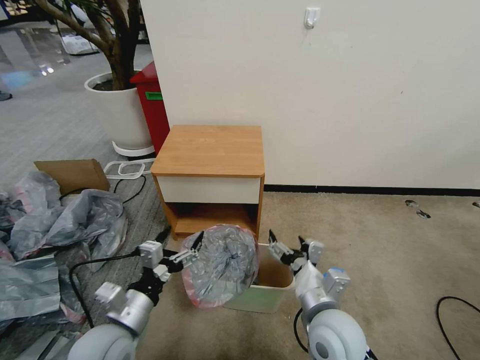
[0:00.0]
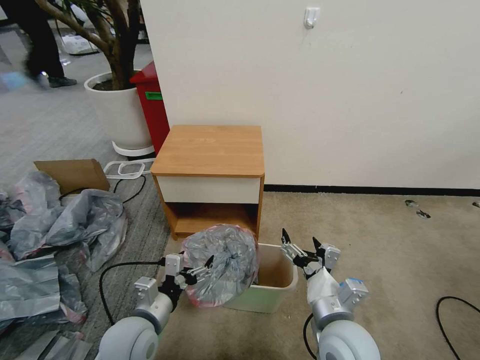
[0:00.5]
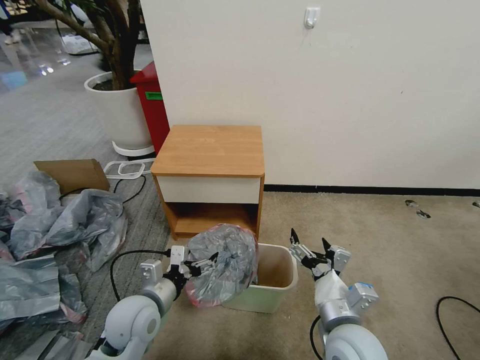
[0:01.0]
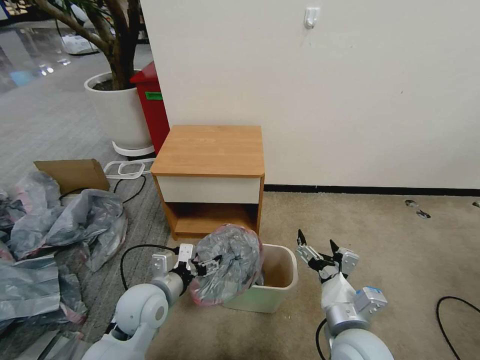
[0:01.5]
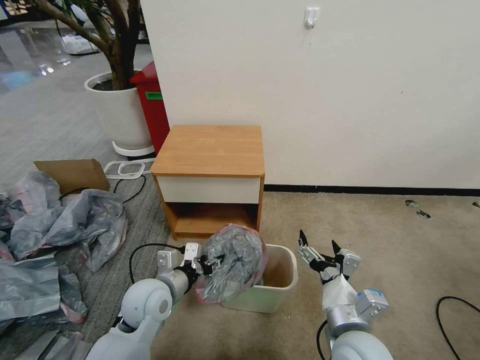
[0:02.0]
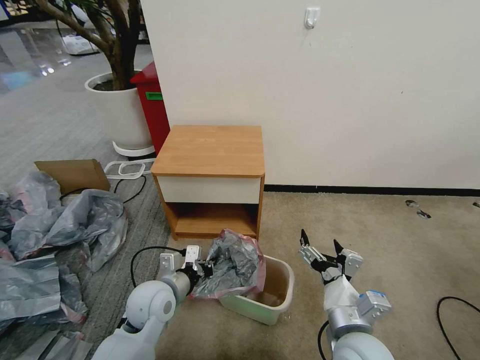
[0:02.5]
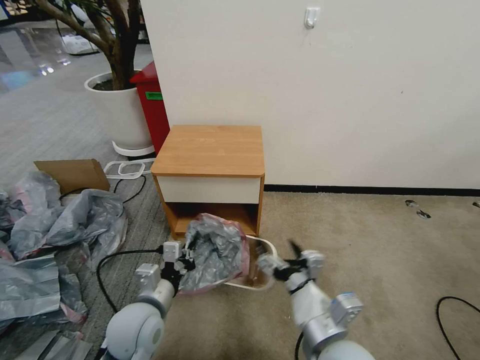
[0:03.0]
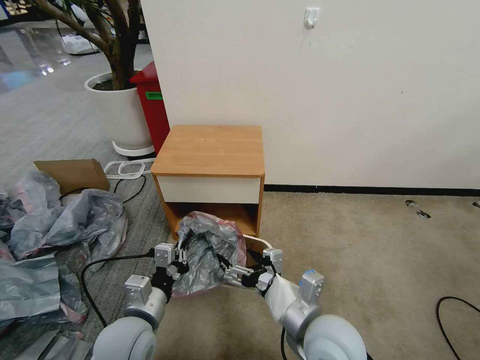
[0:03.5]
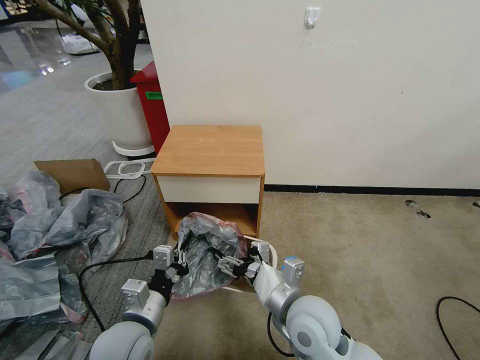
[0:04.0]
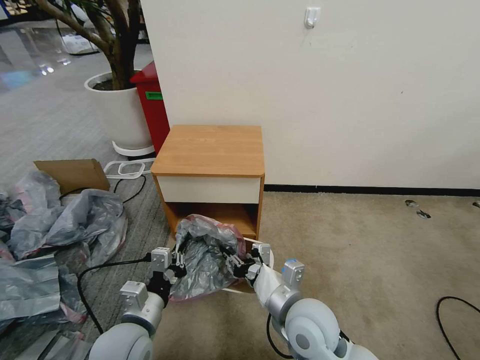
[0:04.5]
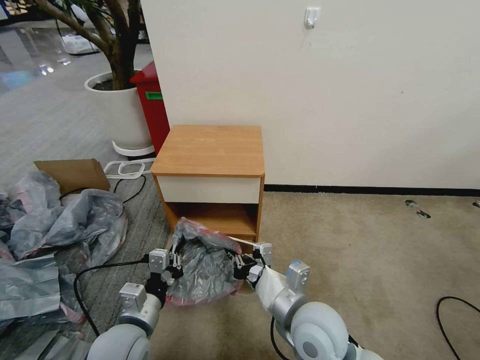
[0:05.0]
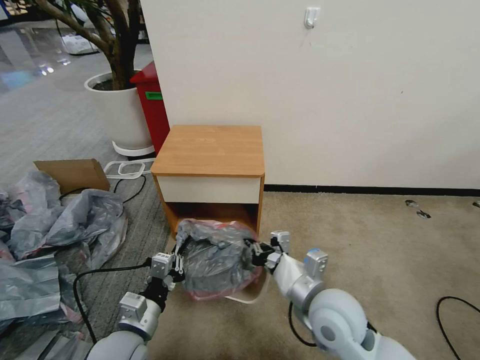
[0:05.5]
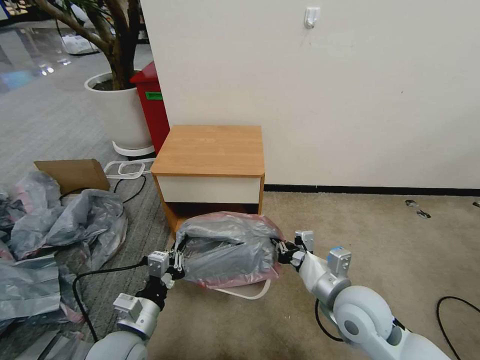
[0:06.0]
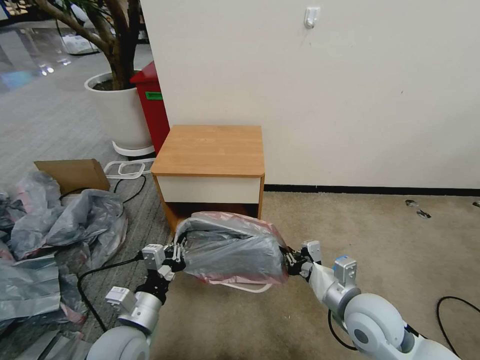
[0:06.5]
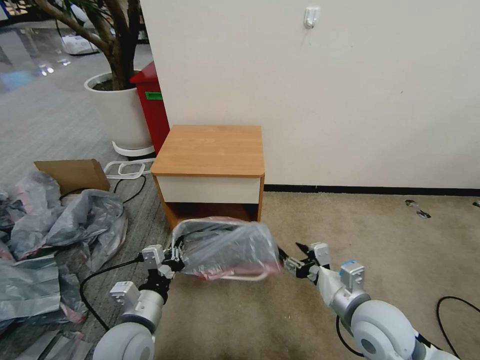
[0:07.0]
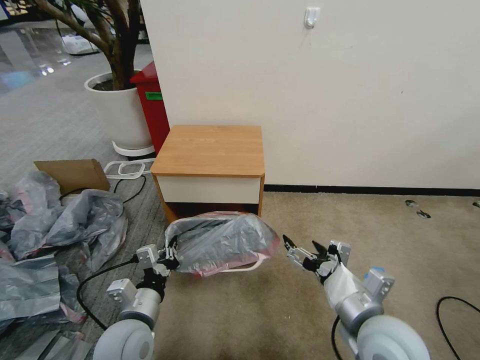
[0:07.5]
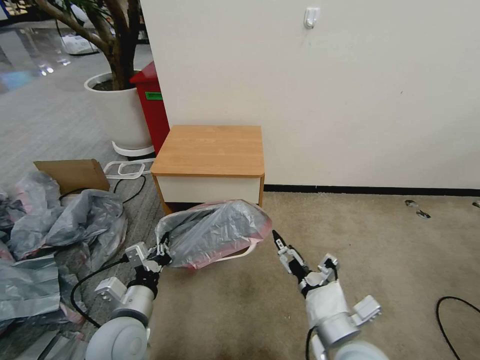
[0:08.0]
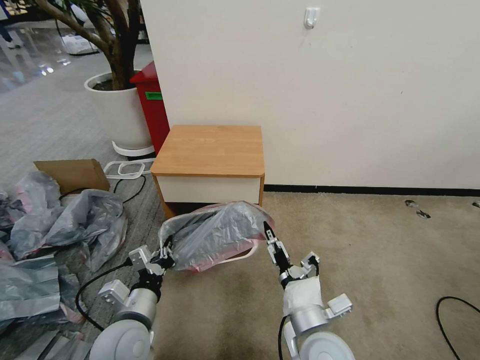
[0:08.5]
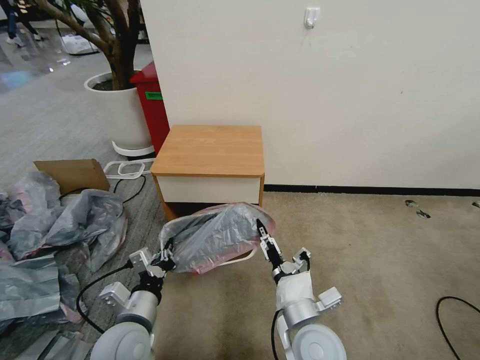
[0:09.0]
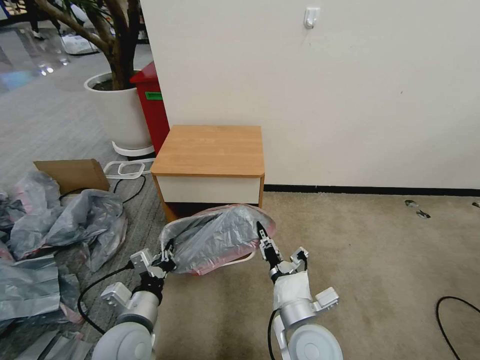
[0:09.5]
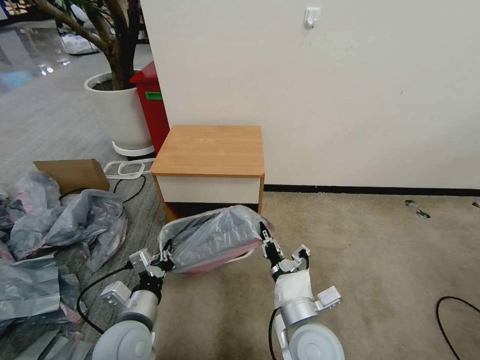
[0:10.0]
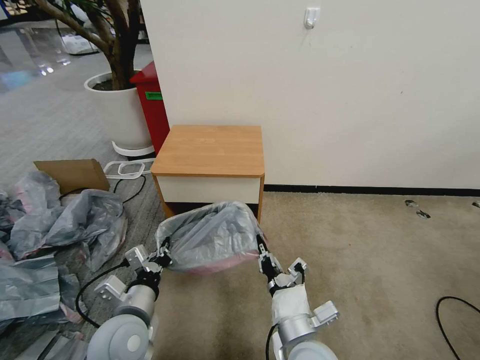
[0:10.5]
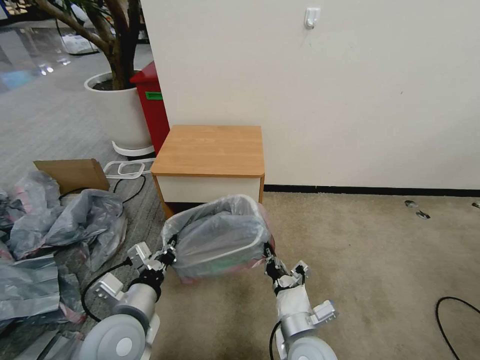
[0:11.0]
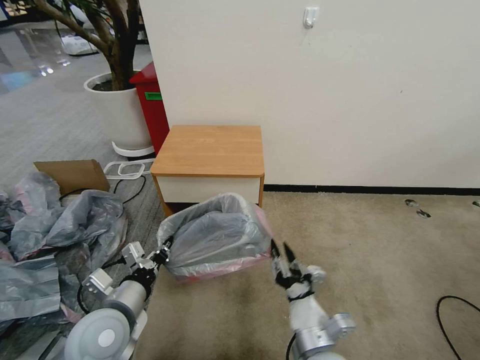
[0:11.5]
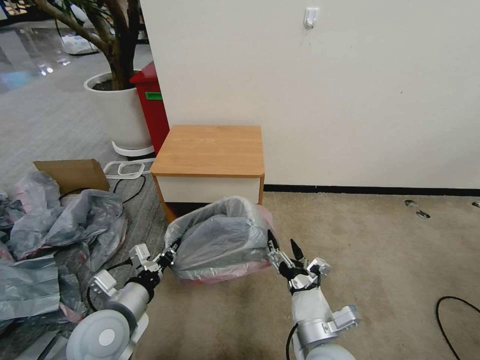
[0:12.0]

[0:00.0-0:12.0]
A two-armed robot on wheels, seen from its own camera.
Task of the whole recording: Pick up the garbage bag from the table and place it over the trash can.
0:00.0 to 0:02.0: The left gripper goes approximately 10 cm forward, and closes its fingers.
0:02.0 to 0:04.0: The right gripper heads to the left and forward, covering roughly 10 cm. The left gripper is displaced backward by roughly 10 cm, and closes its fingers.
0:04.0 to 0:06.0: The right gripper moves to the right, about 10 cm, and closes its fingers.
0:06.0 to 0:08.0: The right gripper is displaced backward by roughly 10 cm, and opens.
0:08.0 to 0:10.0: The right gripper goes some 5 cm to the left, and closes its fingers.
0:10.0 to 0:12.0: The right gripper opens.

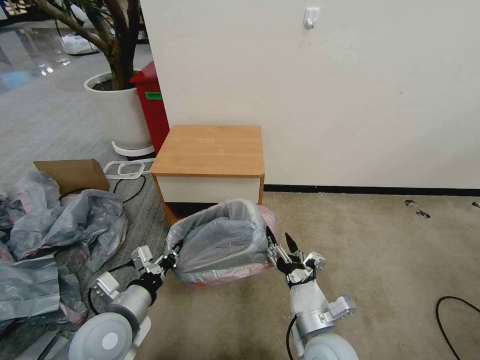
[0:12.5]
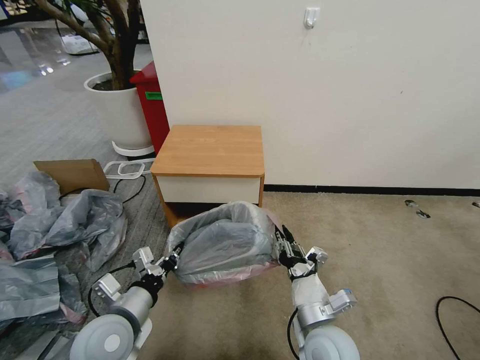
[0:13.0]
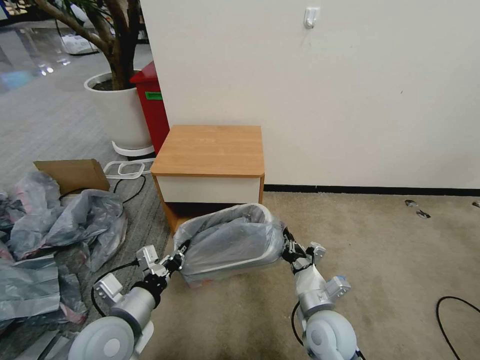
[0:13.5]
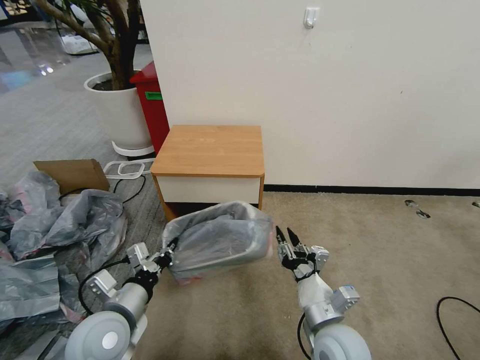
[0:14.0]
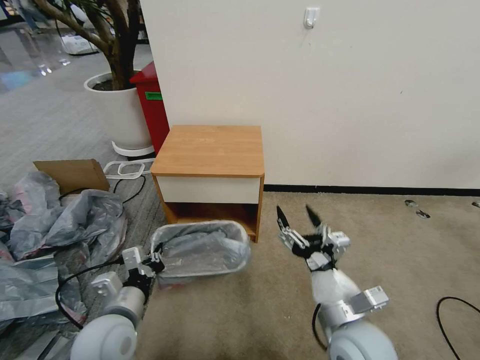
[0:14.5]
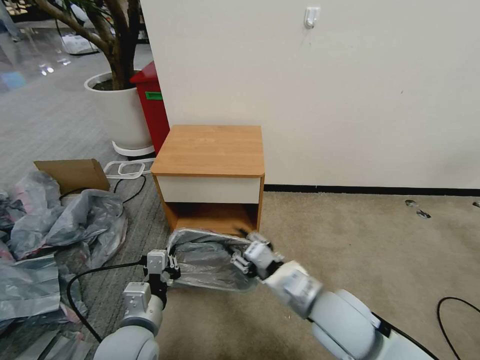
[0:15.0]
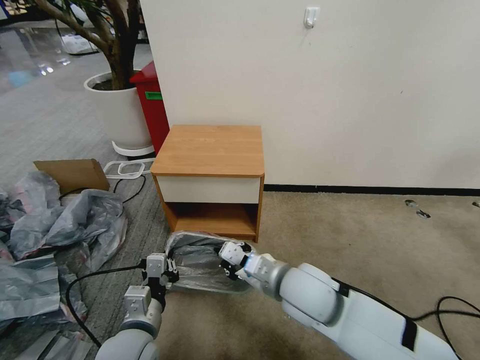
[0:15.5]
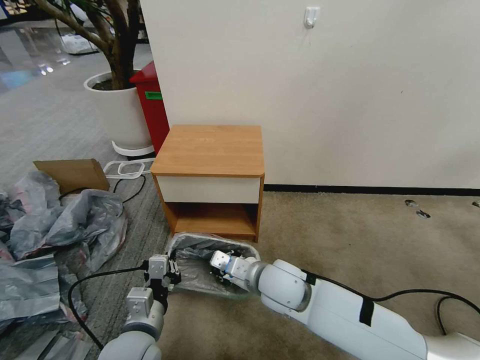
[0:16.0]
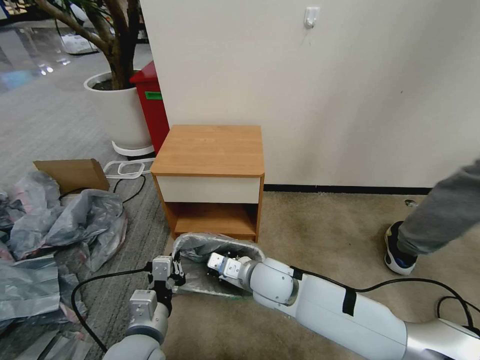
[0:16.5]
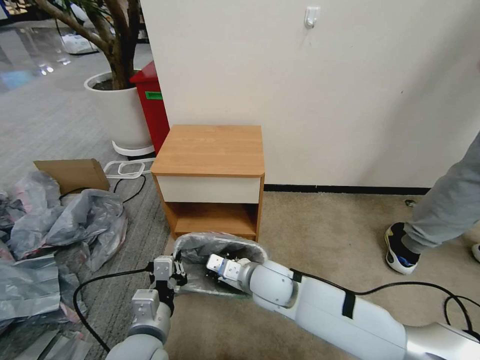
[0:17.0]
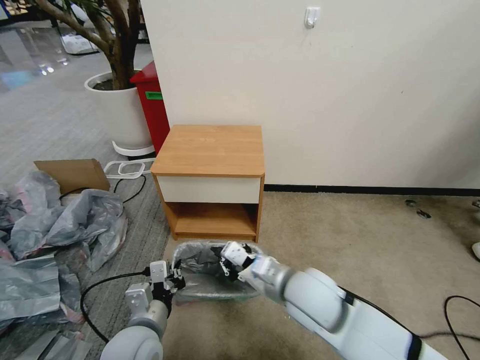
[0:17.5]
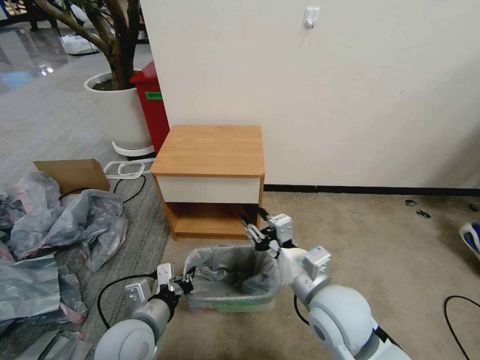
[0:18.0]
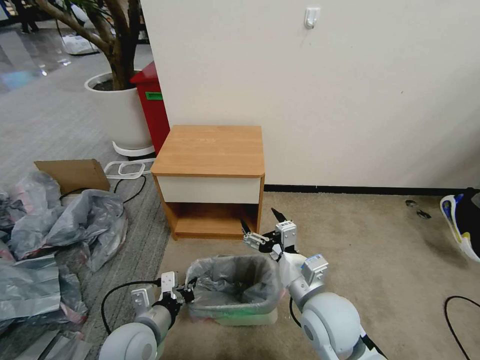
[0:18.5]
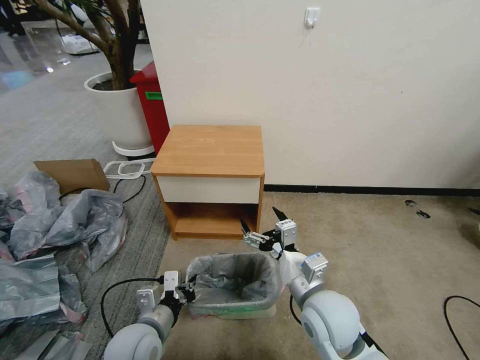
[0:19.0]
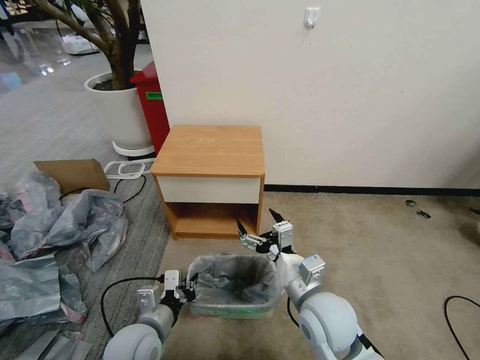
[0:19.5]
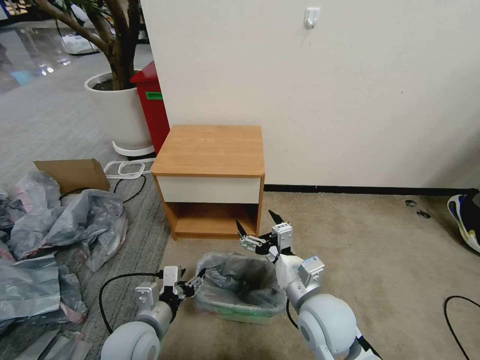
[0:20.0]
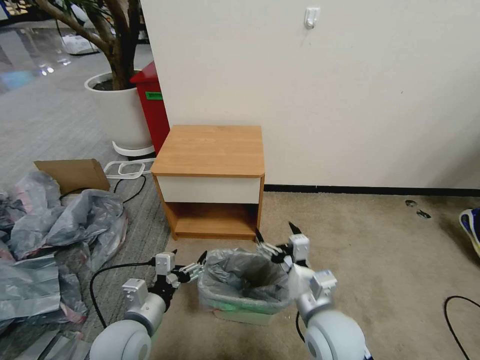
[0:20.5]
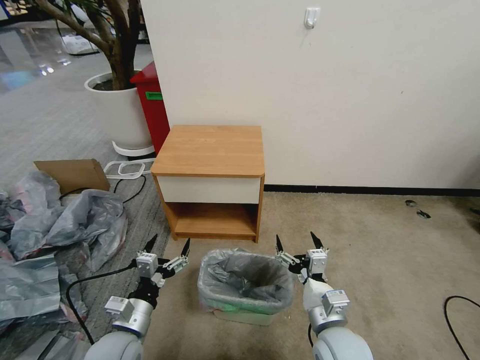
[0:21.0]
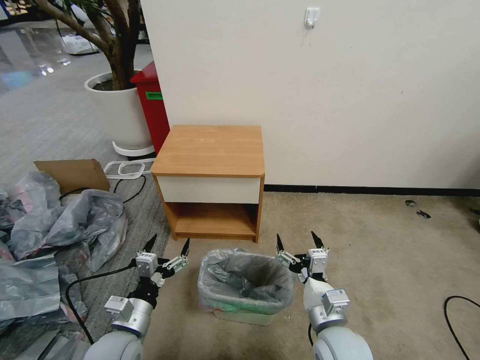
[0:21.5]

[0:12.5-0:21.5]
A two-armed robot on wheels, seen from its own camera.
Task of the whole recording: Pick up the garbage bag from the table and place it over the trash can.
0:12.5 to 0:14.5: The right gripper travels upward by approximately 5 cm, and closes, then reopens.
0:14.5 to 0:17.0: The right gripper heads to the left and forward, covering roughly 20 cm, and closes. Meanwhile the left gripper is displaced to the right by about 5 cm.
0:17.0 to 0:19.5: The left gripper changes place by approximately 5 cm; the right gripper heads to the right and backward, covering some 10 cm, and opens up.
0:19.5 to 0:21.5: The right gripper heads downward, covering about 5 cm, while the left gripper opens.

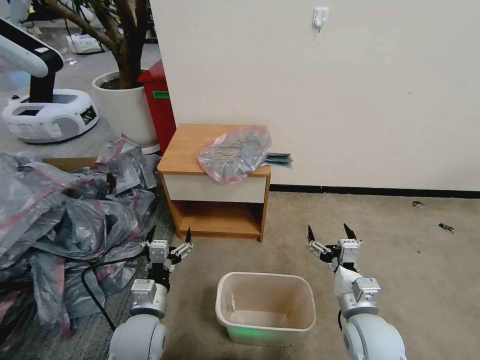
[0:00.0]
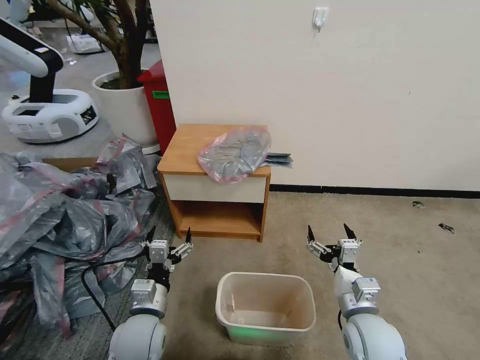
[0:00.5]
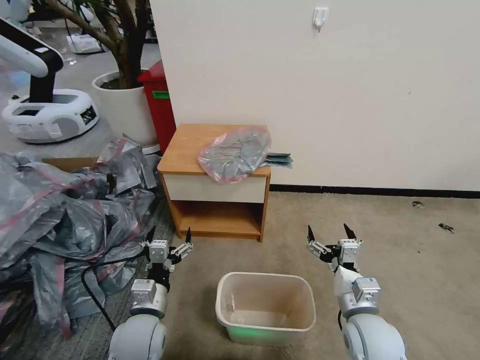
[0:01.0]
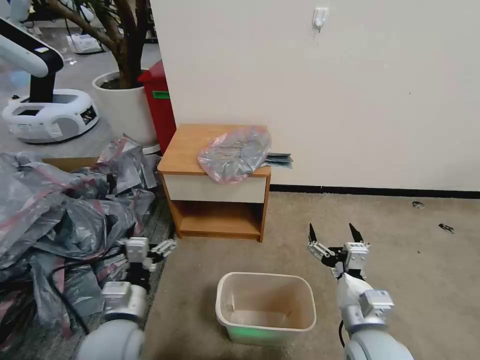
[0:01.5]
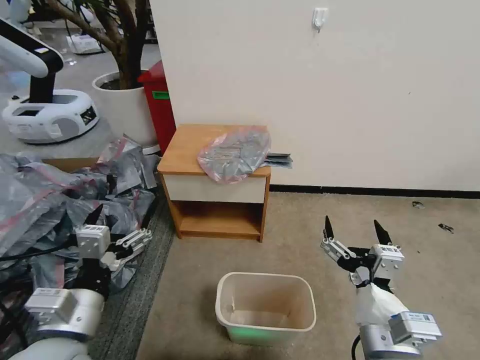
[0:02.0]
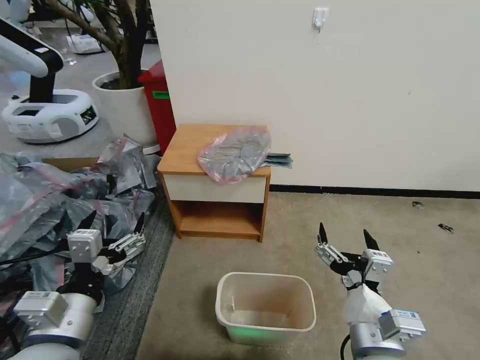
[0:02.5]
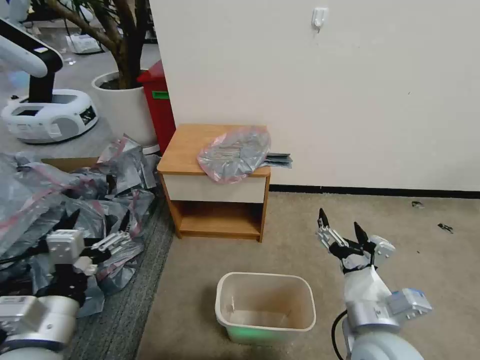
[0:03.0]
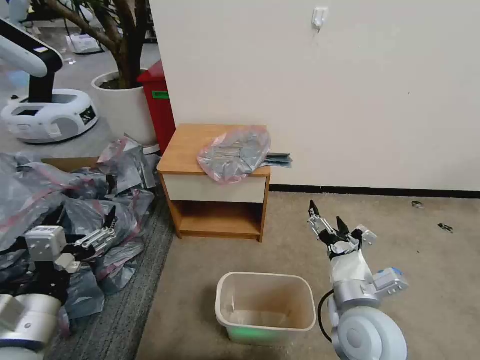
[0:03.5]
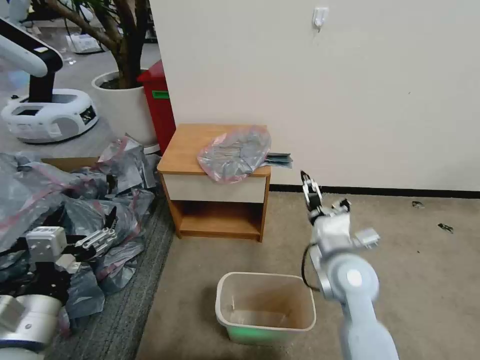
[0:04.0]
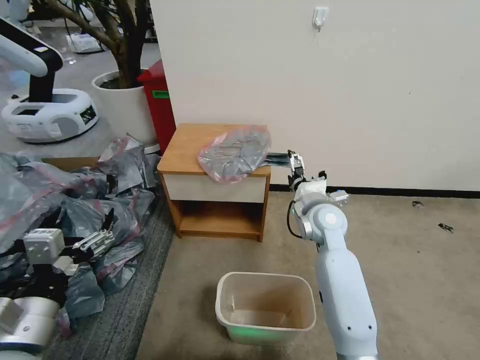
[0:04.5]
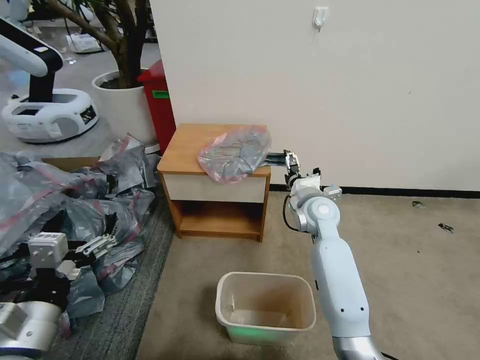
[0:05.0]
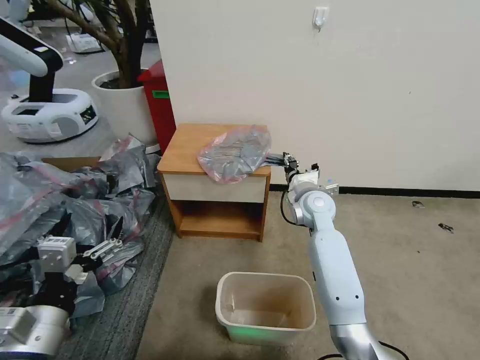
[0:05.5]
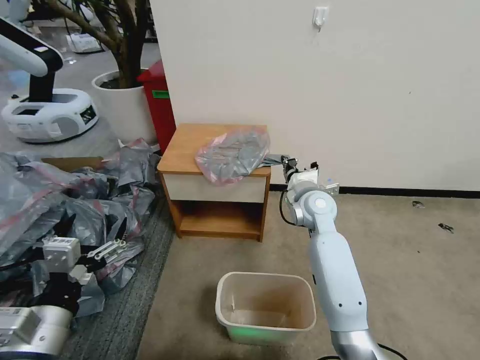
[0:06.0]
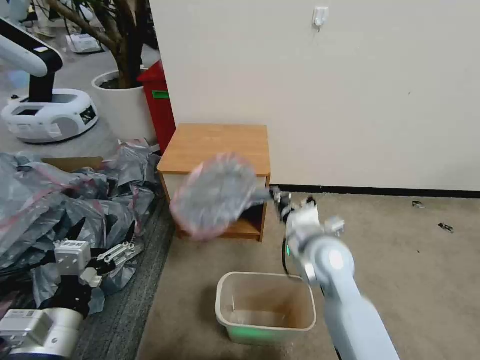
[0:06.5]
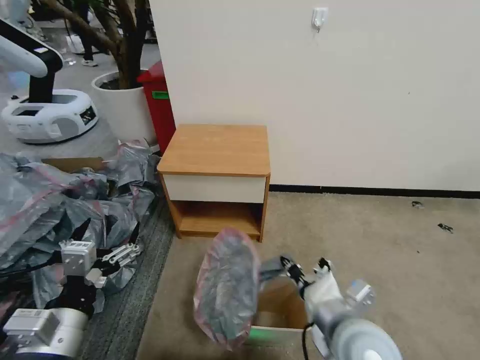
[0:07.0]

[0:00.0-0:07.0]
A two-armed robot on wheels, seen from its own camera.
Task of the whole recording: Pick up the garbage bag from the table and place it over the trash can.
0:02.0 to 0:03.5: The right gripper moves forward, about 10 cm; the left gripper changes place by about 5 cm.
0:03.5 to 0:05.0: The right gripper goes approximately 25 cm forward.
0:05.0 to 0:07.0: The right gripper shifts some 30 cm backward, and closes.
